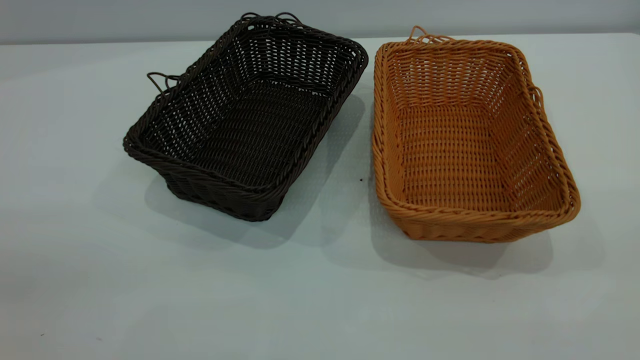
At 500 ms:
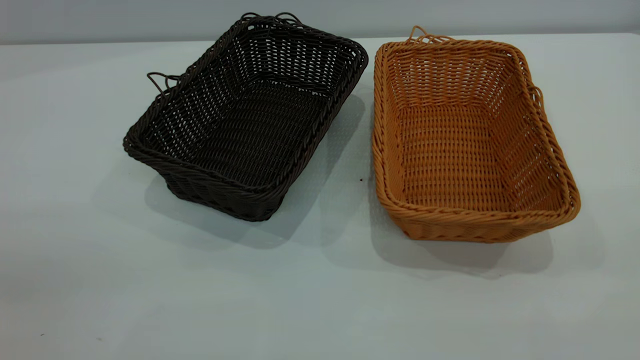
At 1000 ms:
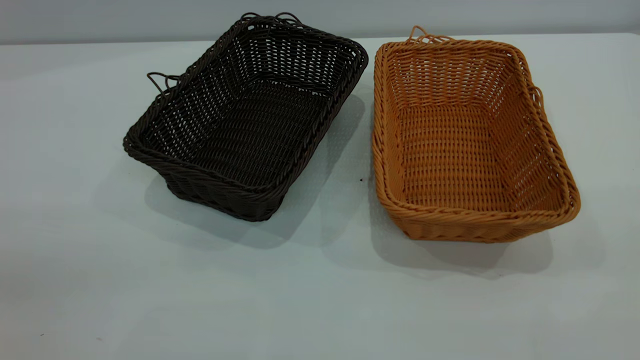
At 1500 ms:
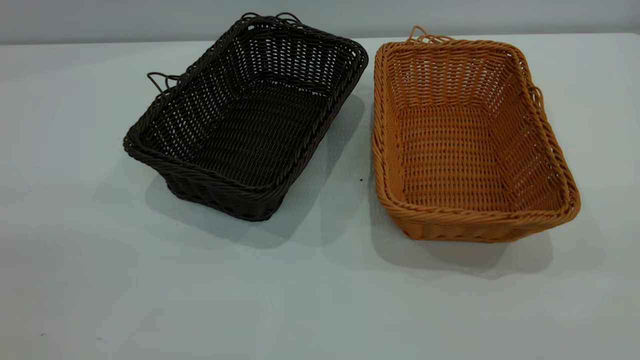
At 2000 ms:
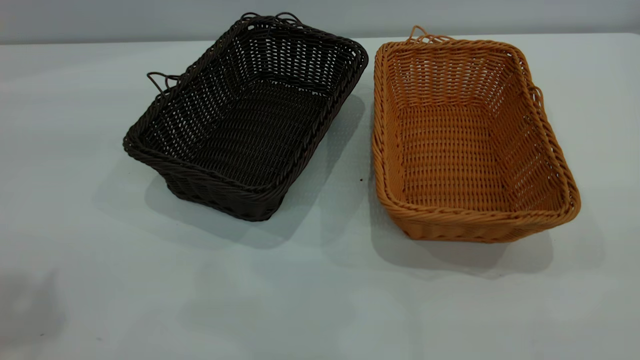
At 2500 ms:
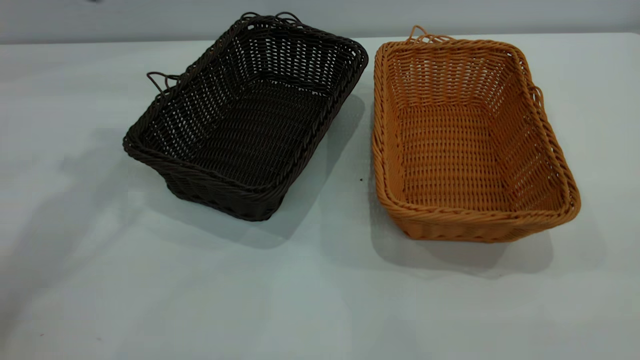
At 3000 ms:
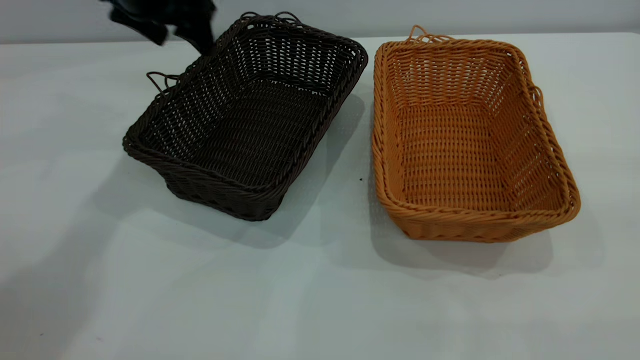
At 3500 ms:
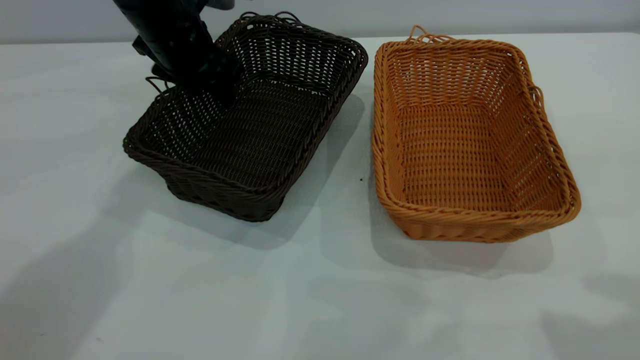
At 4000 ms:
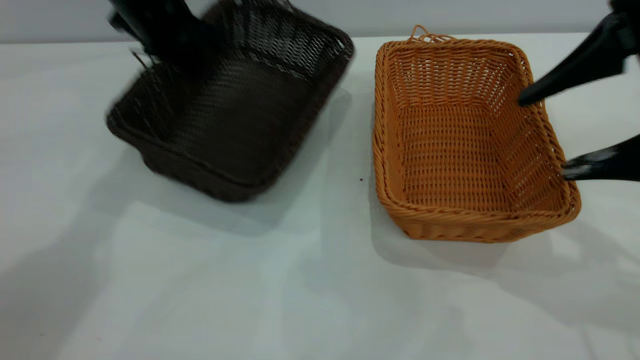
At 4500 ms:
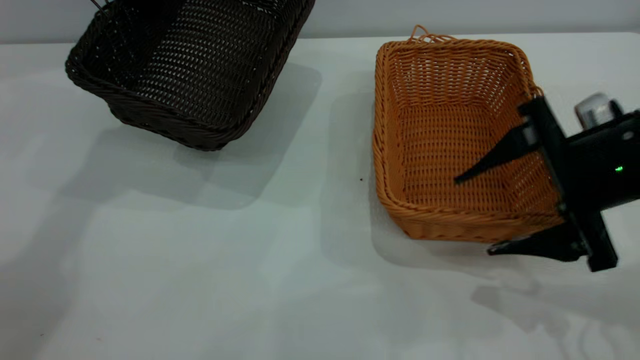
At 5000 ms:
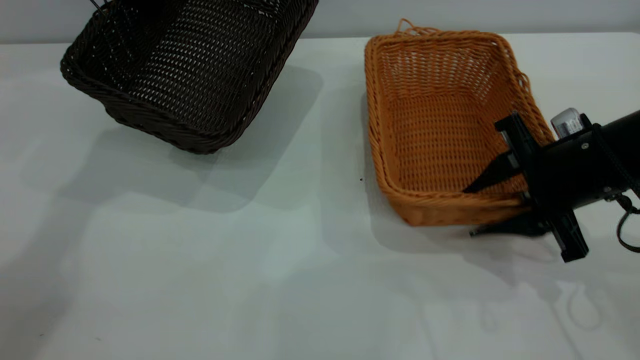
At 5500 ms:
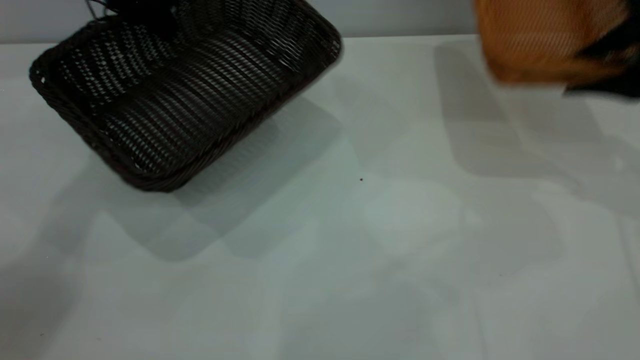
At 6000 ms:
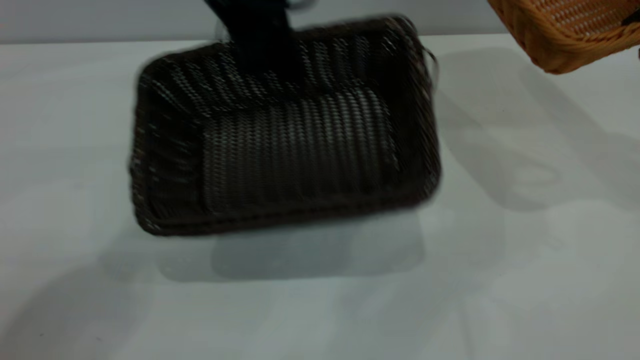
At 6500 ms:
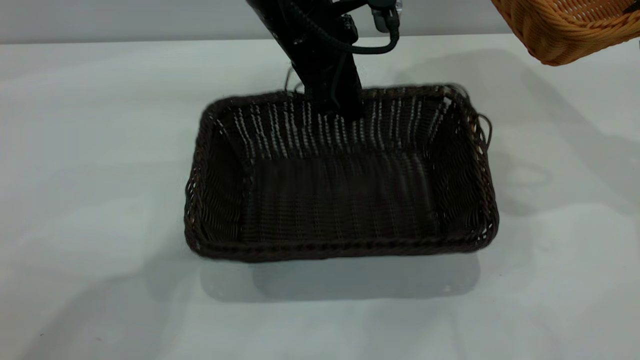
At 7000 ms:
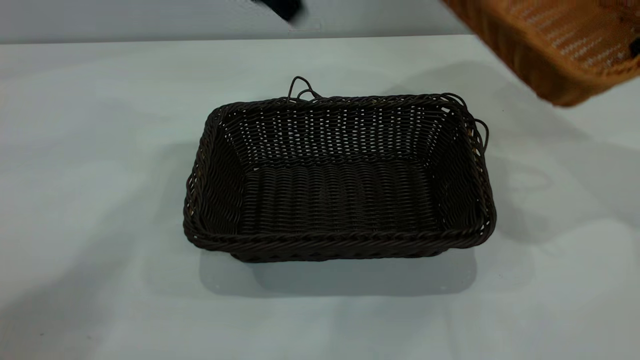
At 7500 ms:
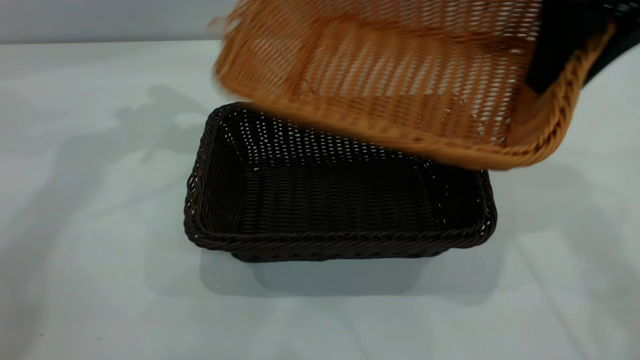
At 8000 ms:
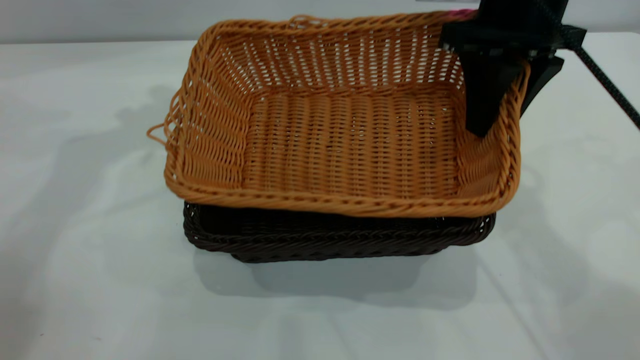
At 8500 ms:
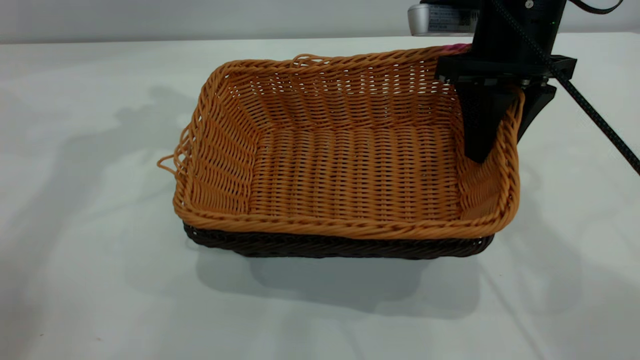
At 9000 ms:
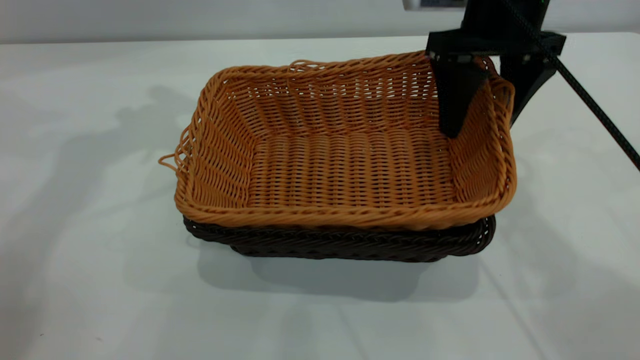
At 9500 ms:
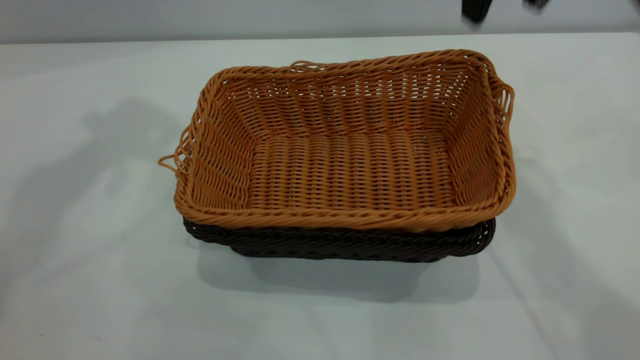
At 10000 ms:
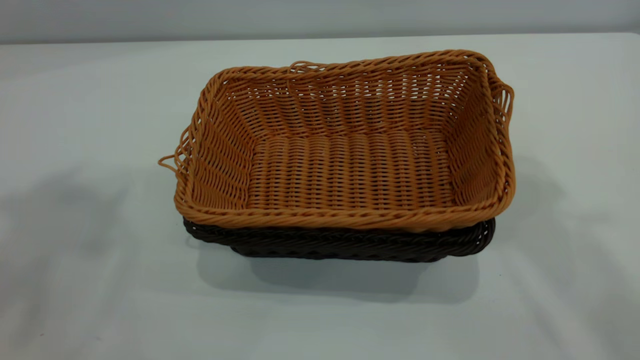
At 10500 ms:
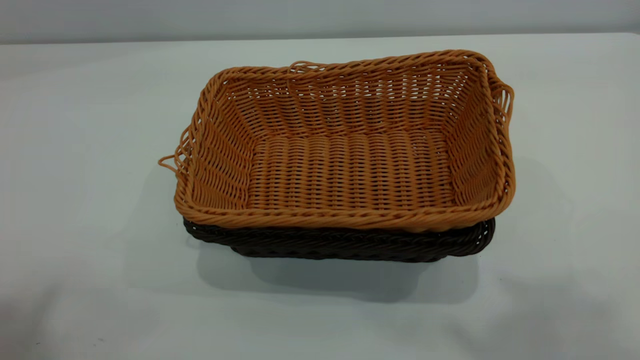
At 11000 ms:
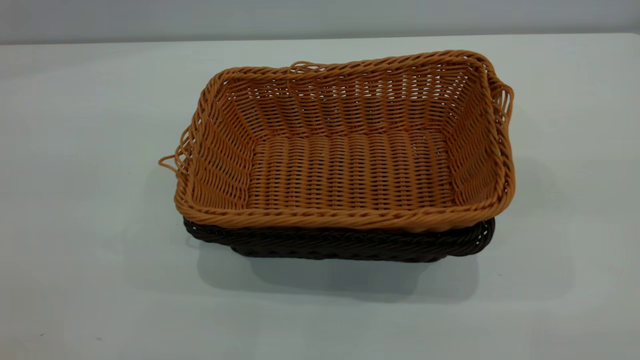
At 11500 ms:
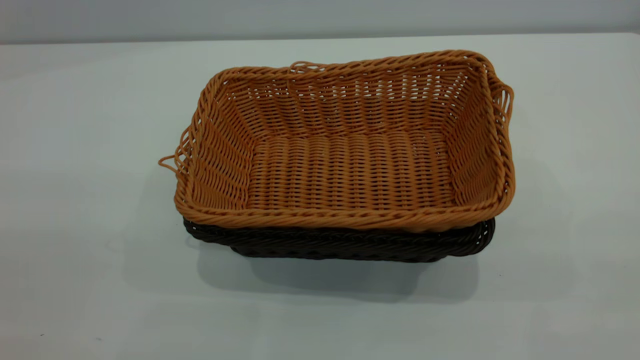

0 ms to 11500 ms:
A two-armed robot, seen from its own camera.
Task of the whole recording: the left gripper grasp the black basket and place it in the center of the table, the right gripper grasp the brown basket and place it inside the black one.
Step, 0 ms to 5000 ms: Pick up the light basket with the right gripper.
Step, 5500 ms to 6500 ms: Move the dark basket to the center of view.
Step, 7000 ms to 9000 ms: Place the light basket on the dark basket.
2000 ms to 4000 ms: Both grippers move forward and downward, some 30 cm. The left gripper closes its fingers.
4000 ms to 6000 ms: The left gripper goes roughly 15 cm to the right and backward. The right gripper goes roughly 15 cm forward and to the right, reaches about 15 cm downward, then returns, and closes its fingers.
6000 ms to 7500 ms: The right gripper goes some 15 cm to the left, while the left gripper is displaced to the left and upward by roughly 20 cm, and opens.
7500 ms to 9500 ms: The right gripper travels upward by approximately 5 cm, and opens; the left gripper moves upward, roughly 15 cm.
9500 ms to 11500 ms: The two grippers go about 40 cm backward.
